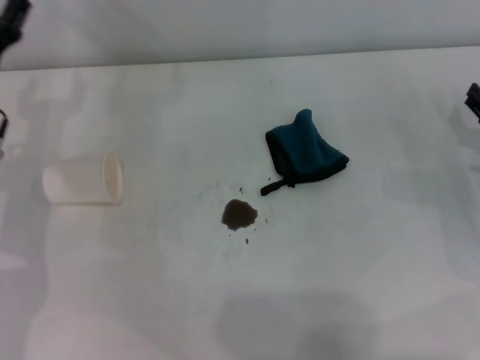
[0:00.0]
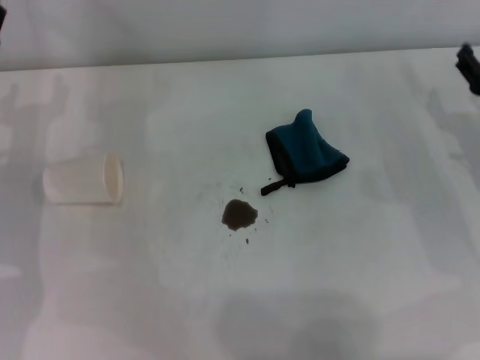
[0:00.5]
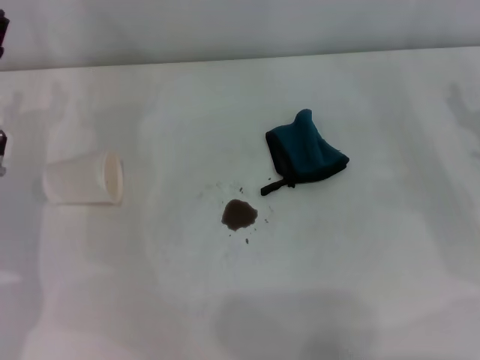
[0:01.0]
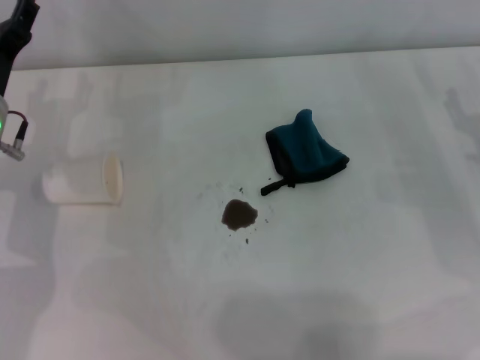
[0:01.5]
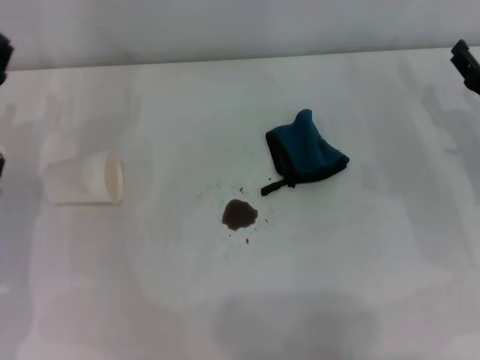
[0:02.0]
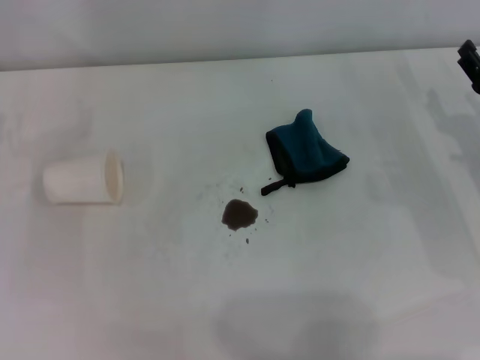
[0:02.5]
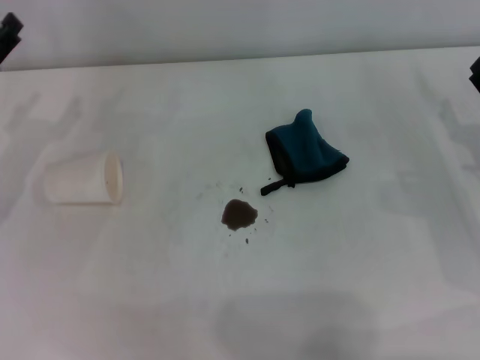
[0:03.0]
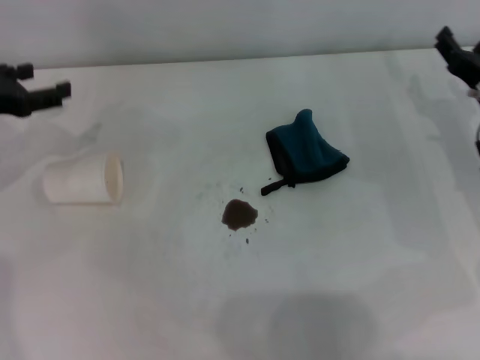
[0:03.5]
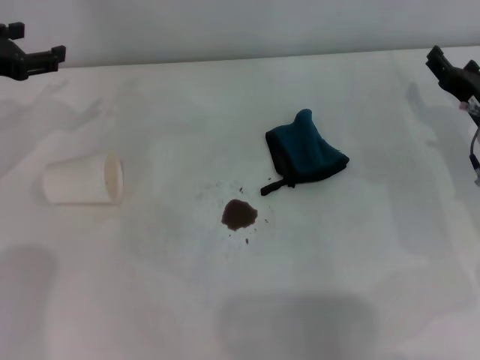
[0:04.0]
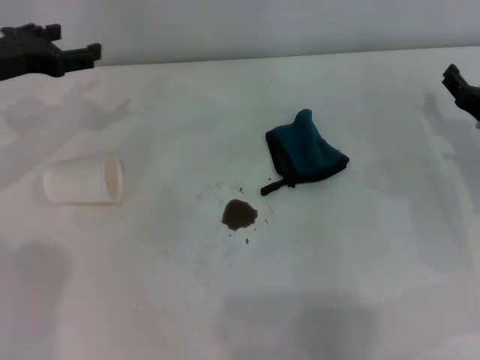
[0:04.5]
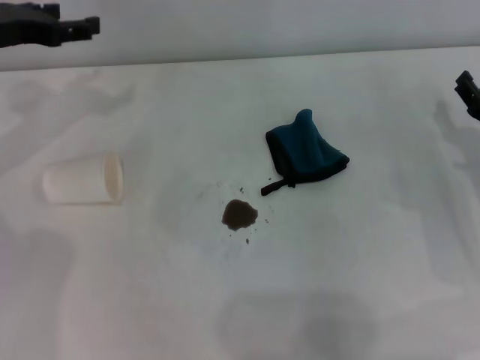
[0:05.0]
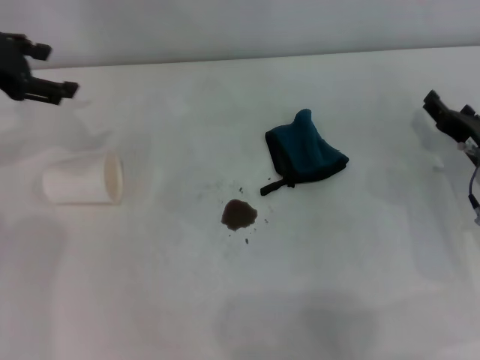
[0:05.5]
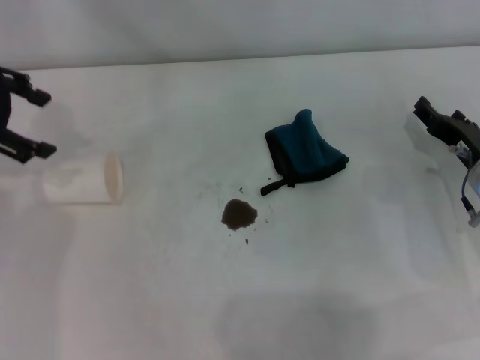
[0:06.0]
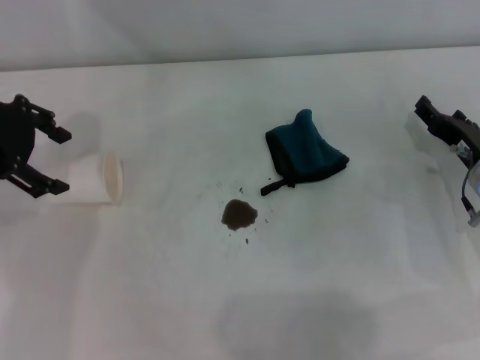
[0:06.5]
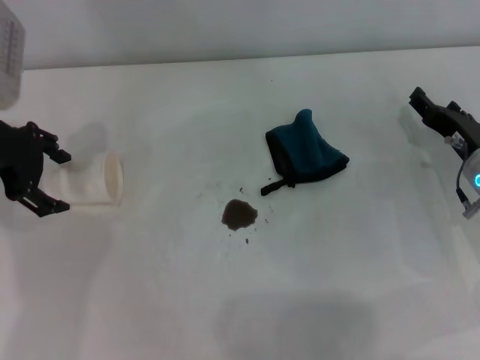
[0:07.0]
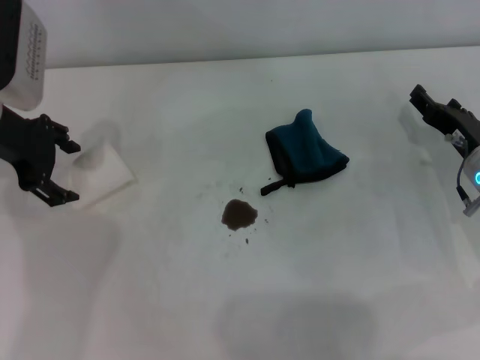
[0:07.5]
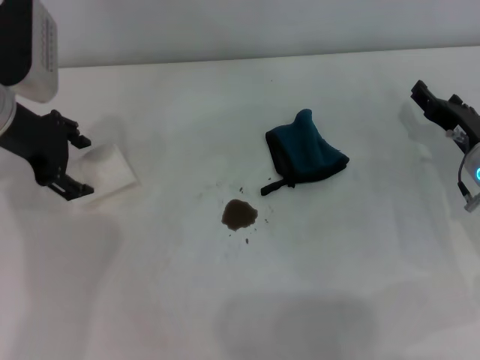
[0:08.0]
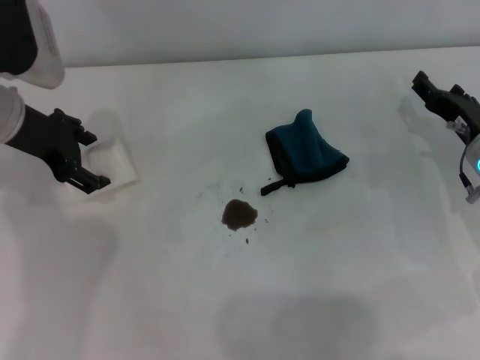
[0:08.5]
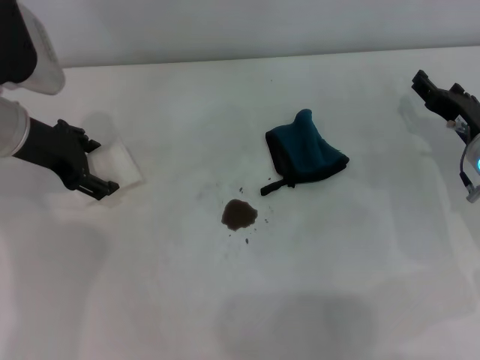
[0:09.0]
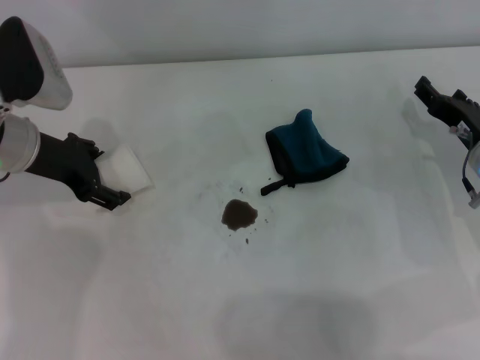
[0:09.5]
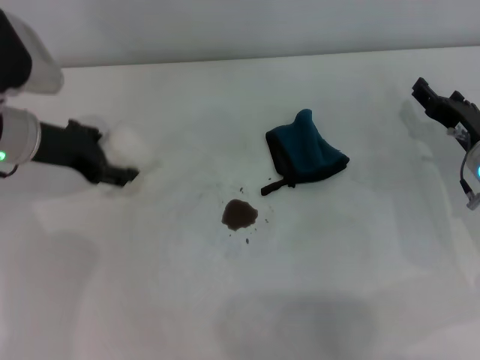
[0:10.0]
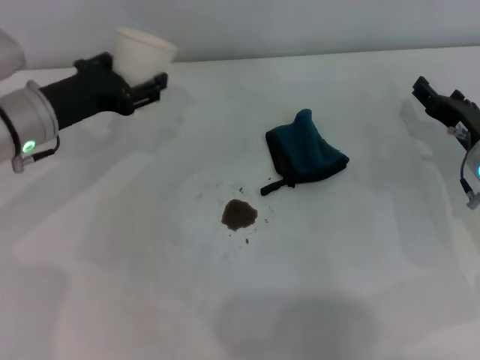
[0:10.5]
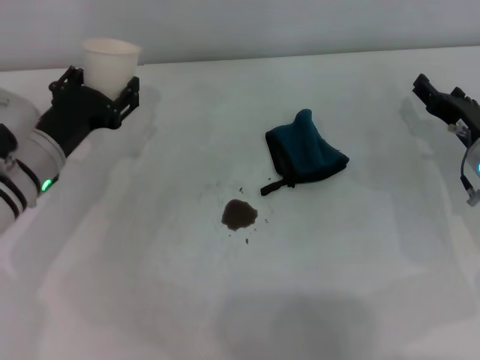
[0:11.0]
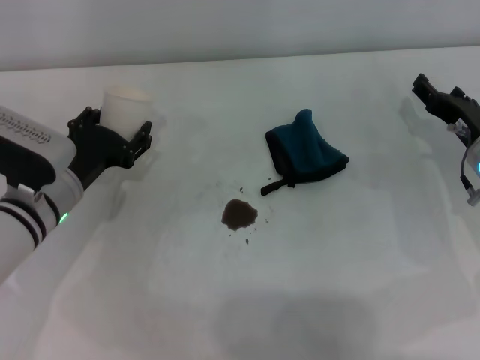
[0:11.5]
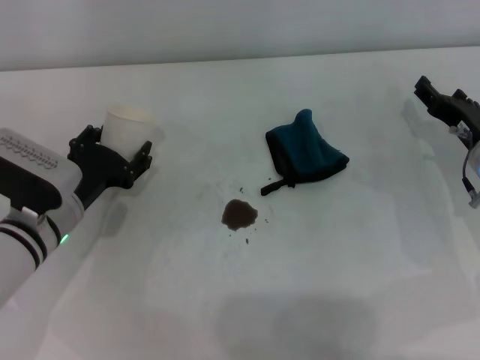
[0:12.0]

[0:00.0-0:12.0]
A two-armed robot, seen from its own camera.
Step, 0:00.0 to 0:09.0: Grasp the paper cup with the left gripper.
0:02.0 to 0:04.0: The left gripper goes about 10 cm upward and forward.
0:04.0 to 0:06.0: The left gripper heads upward, covering about 5 cm.
0:06.0 to 0:08.0: The left gripper moves to the right and downward, some 10 cm.
0:10.0 to 0:12.0: The left gripper heads downward and backward, covering roughly 15 cm, and closes.

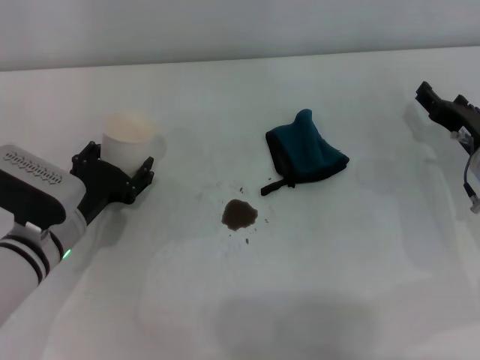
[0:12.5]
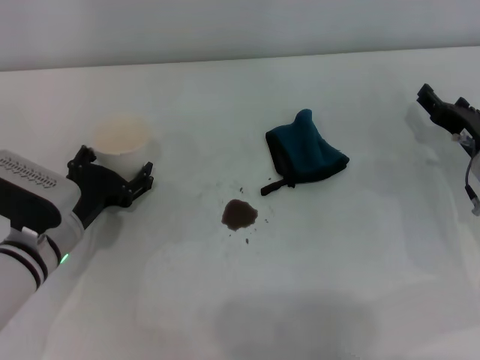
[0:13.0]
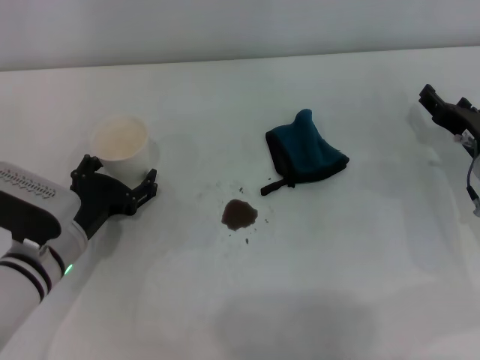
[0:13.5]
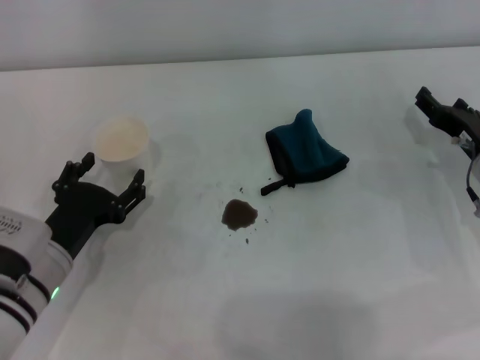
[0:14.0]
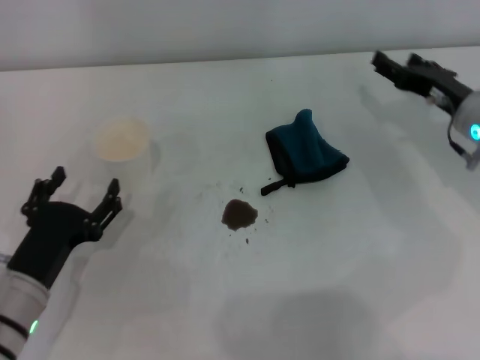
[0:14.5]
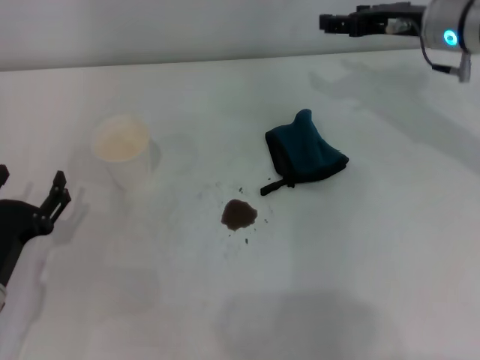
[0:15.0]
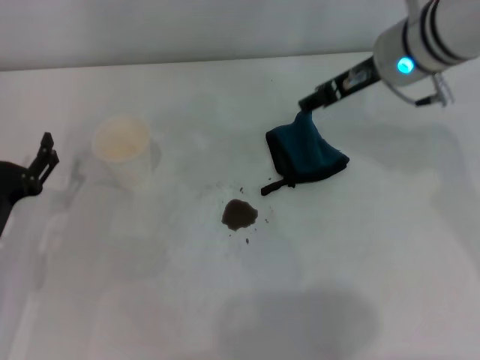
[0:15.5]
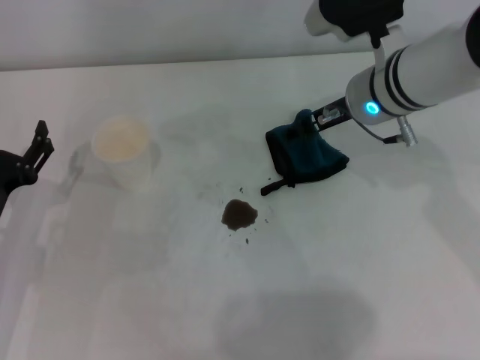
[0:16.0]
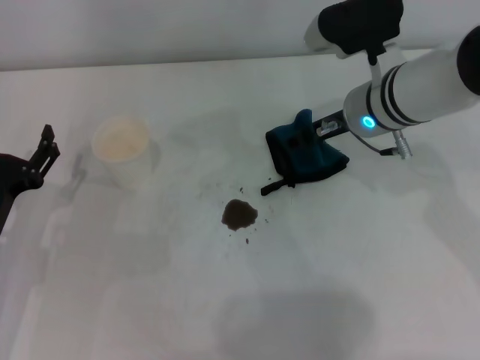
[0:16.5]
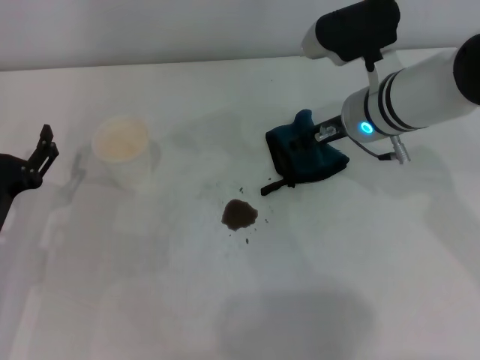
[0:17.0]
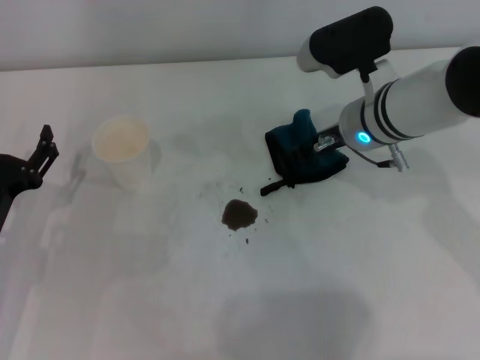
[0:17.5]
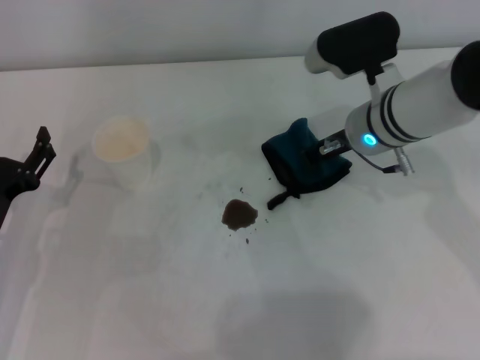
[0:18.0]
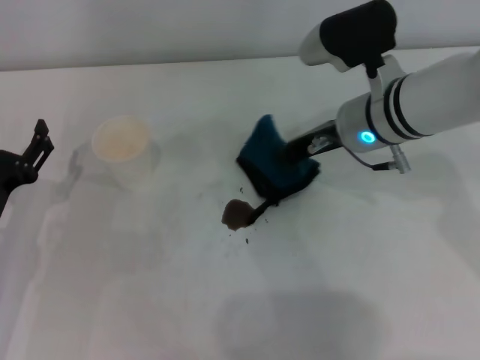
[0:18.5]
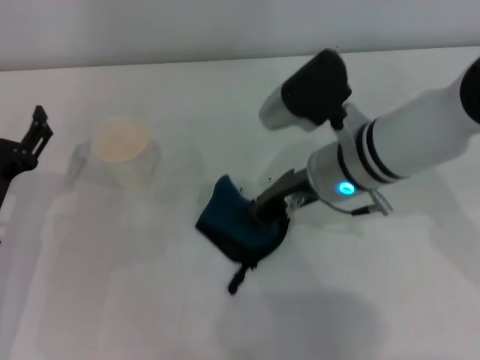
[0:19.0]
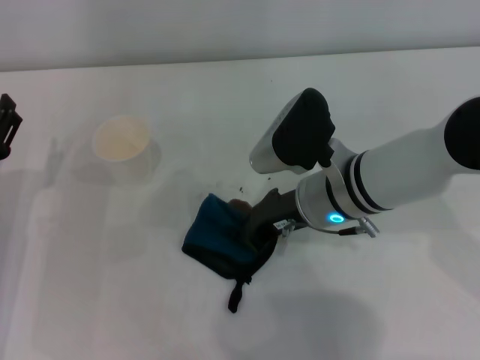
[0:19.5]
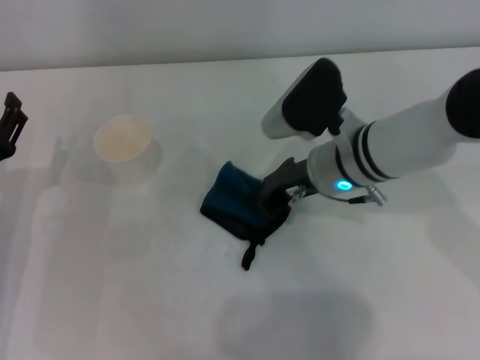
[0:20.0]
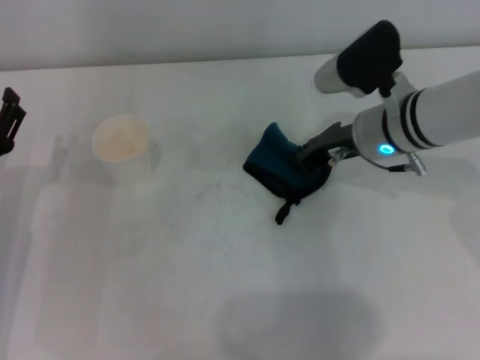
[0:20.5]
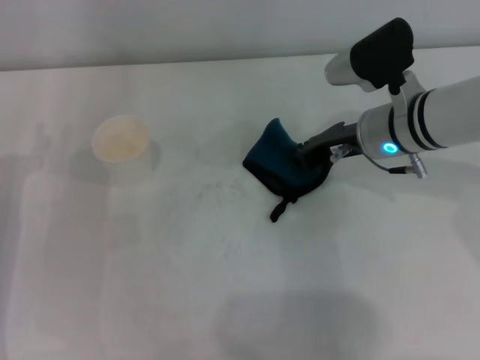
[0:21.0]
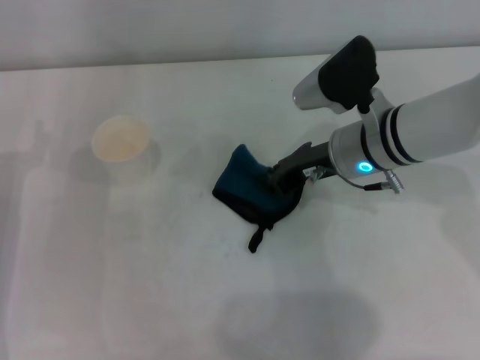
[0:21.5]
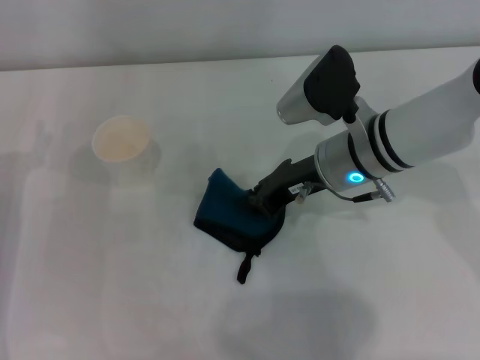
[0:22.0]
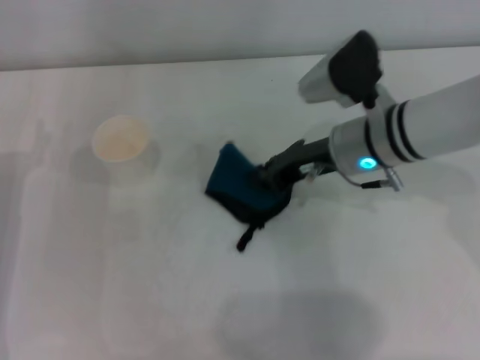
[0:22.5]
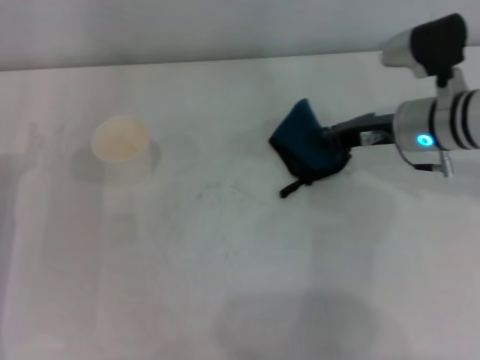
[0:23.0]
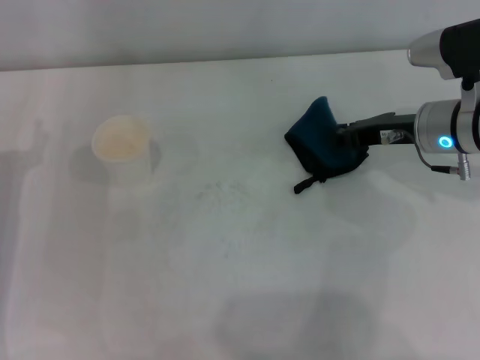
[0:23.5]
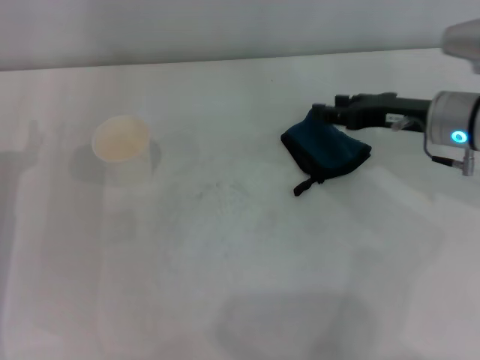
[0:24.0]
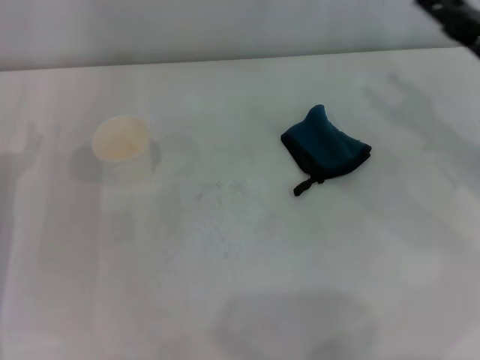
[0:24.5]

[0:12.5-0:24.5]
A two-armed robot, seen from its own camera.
Step, 0:14.0 to 0:17.0: Grasp the rag with the right gripper.
Step, 0:17.5 to 0:22.5: Wipe the stains off the table with the right gripper.
Step, 0:23.0 to 0:23.5: Place the rag on the table with the right gripper.
0:12.5 to 0:14.5: The right gripper moves roughly 5 cm. Meanwhile the left gripper is displaced backward by some 10 cm, and opens up.
0:14.5 to 0:16.5: The right gripper shifts about 15 cm to the left and upward. The left gripper moves some 5 cm.
0:16.5 to 0:18.5: The right gripper closes.
0:20.5 to 0:22.5: The grippers make only small movements.
0:22.5 to 0:24.5: The right gripper goes roughly 15 cm to the right, and opens up.
